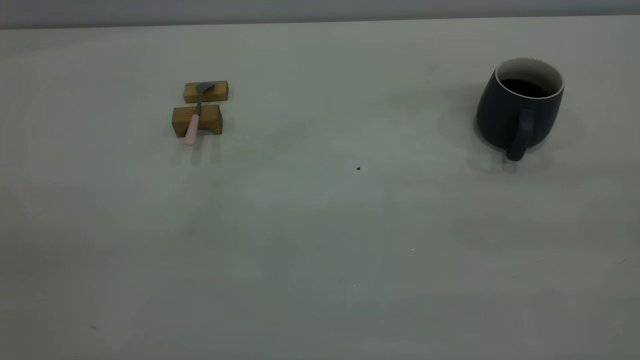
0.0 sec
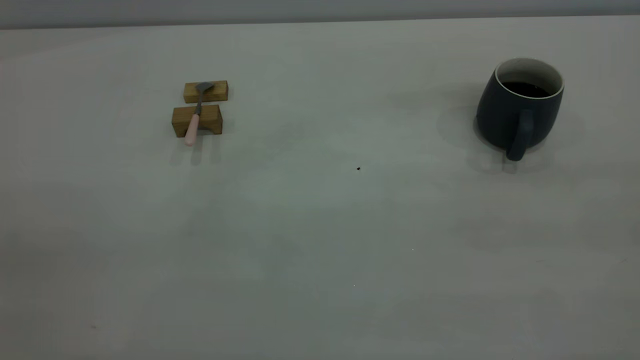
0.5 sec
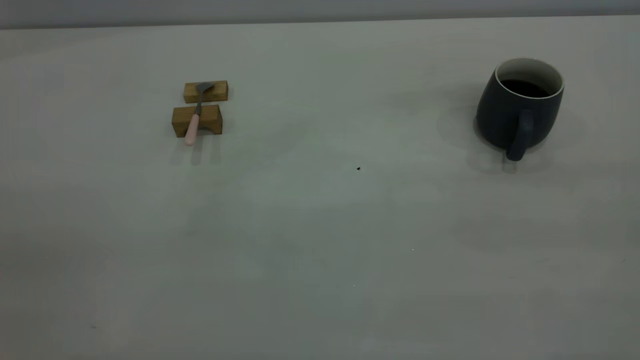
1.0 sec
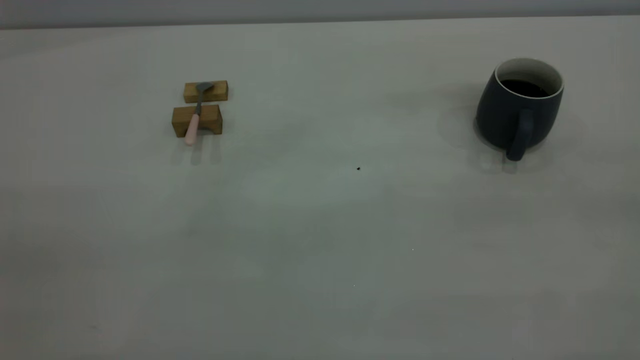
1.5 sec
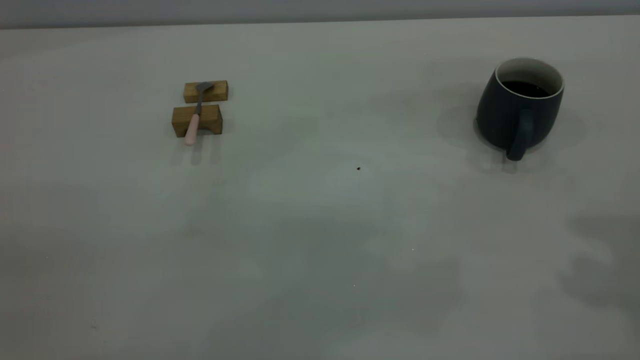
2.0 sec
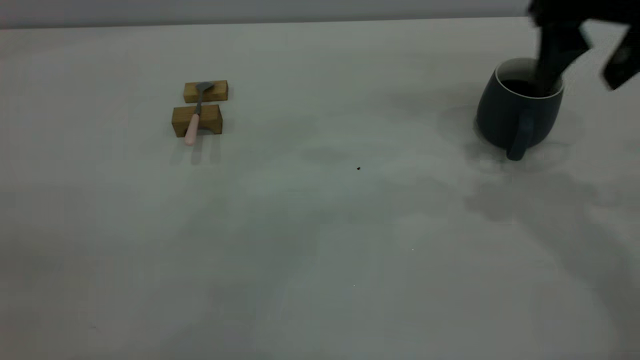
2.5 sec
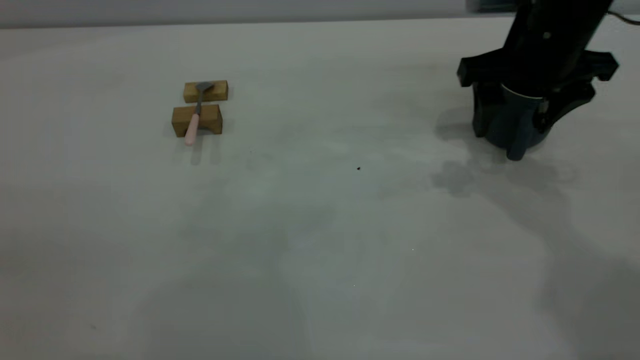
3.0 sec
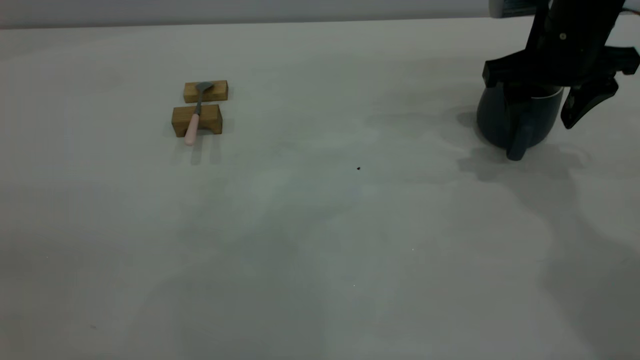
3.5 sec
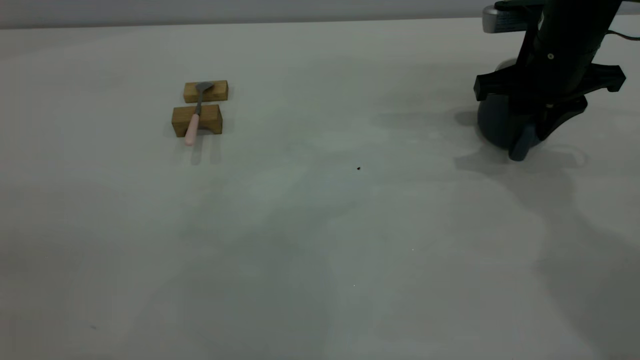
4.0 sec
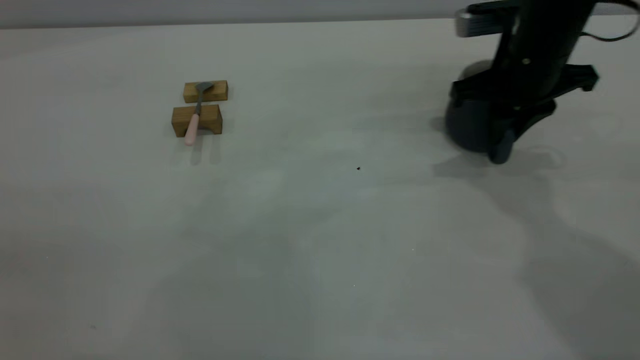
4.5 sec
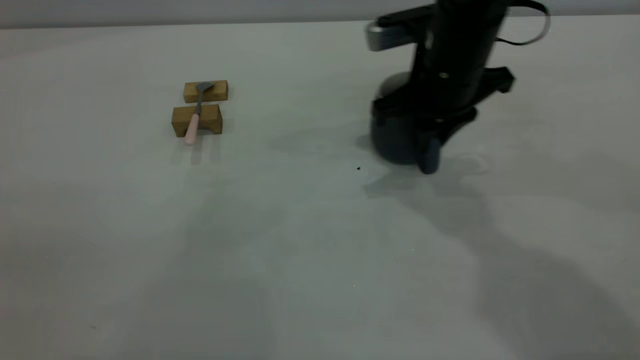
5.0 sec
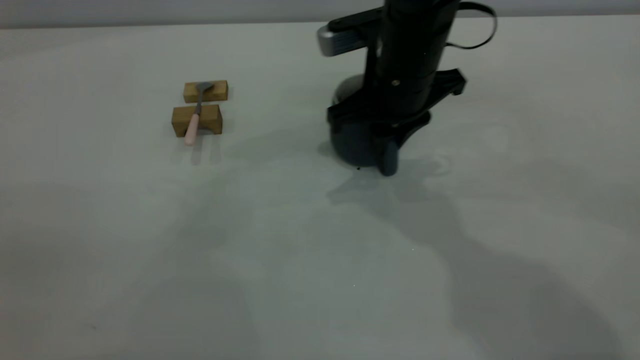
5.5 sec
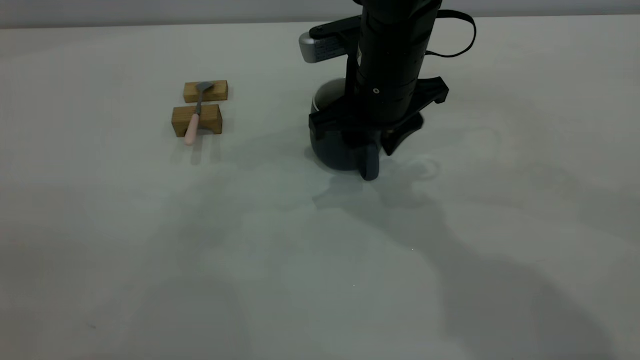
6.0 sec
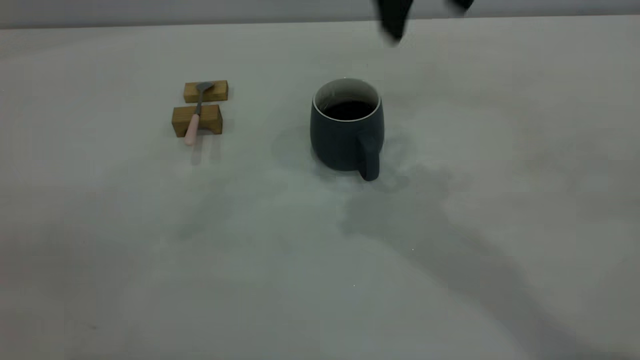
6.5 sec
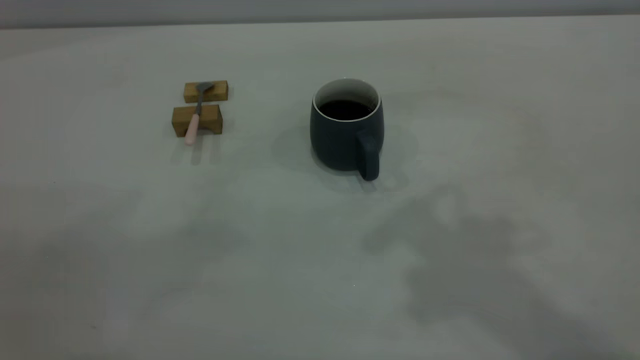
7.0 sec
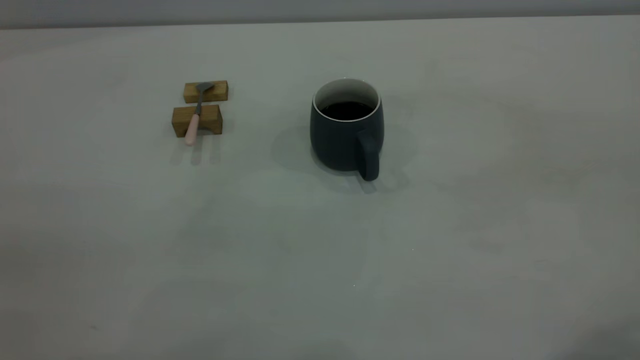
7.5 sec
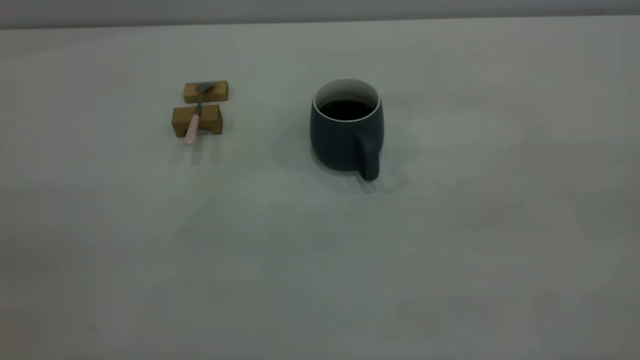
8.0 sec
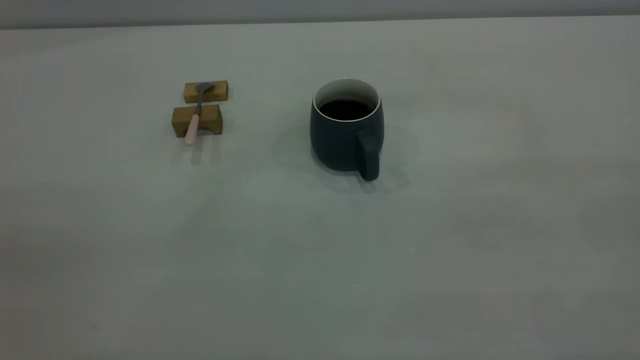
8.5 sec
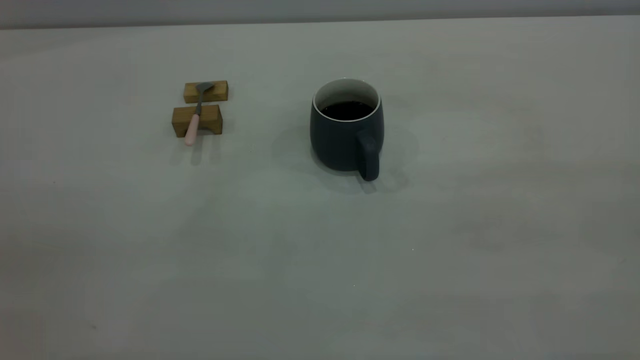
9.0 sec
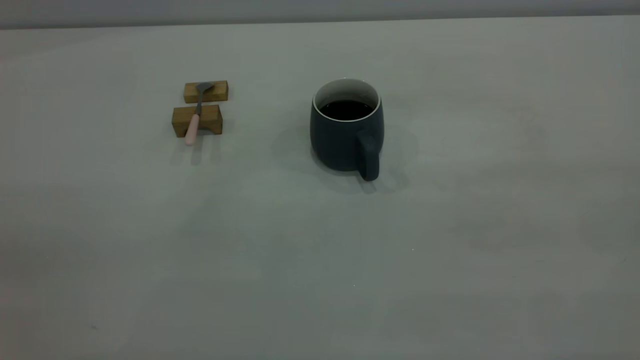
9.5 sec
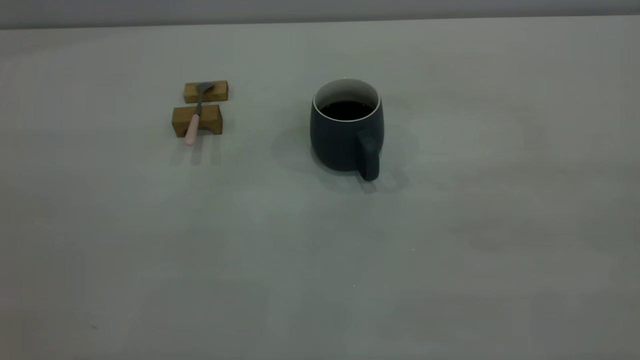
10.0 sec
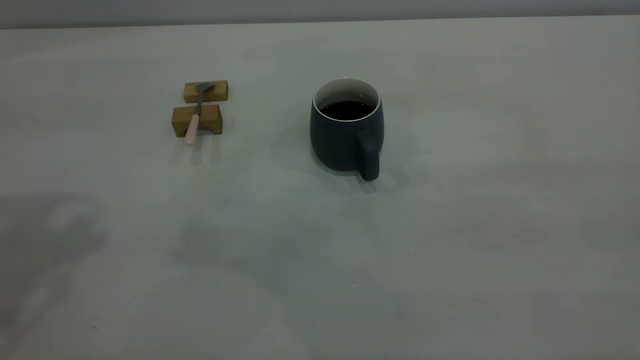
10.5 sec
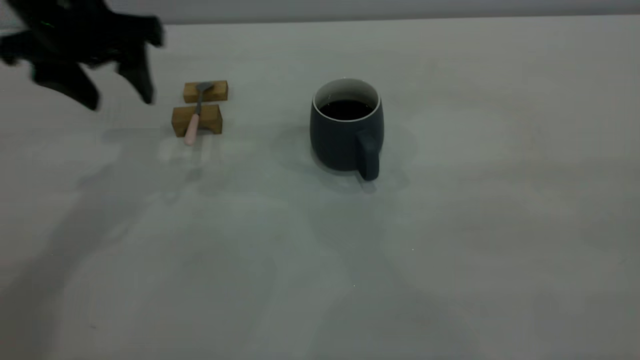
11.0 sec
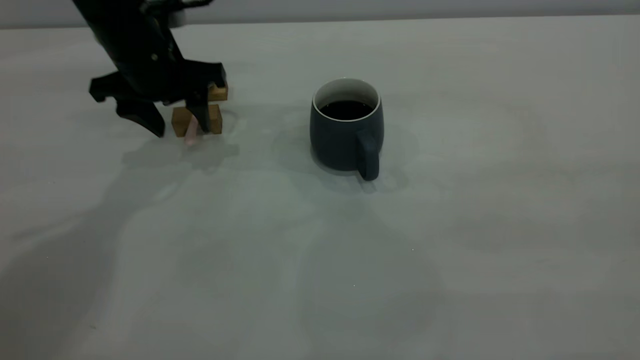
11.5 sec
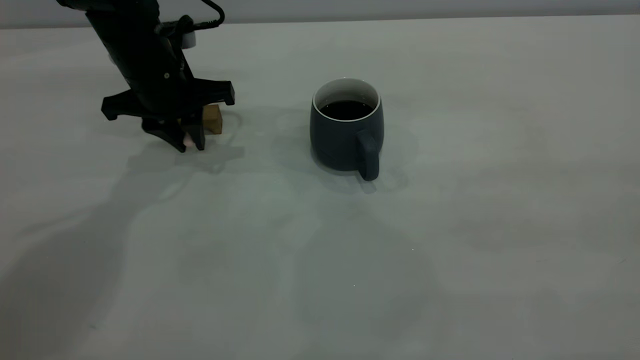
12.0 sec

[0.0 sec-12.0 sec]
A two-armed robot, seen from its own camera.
Step, 0.0 sec to 6.0 sec: Move the cup with coffee to the center of view.
2.0 sec to 4.0 sec: The right gripper goes about 30 cm downward and forward, and closes.
4.0 sec to 6.0 sec: The right gripper travels to the left by roughly 15 cm, and opens up.
6.0 sec to 8.0 sec: The right gripper moves backward, to the right and upward, some 50 cm.
10.0 sec to 12.0 sec: The left gripper shifts approximately 50 cm forward and downward, and closes.

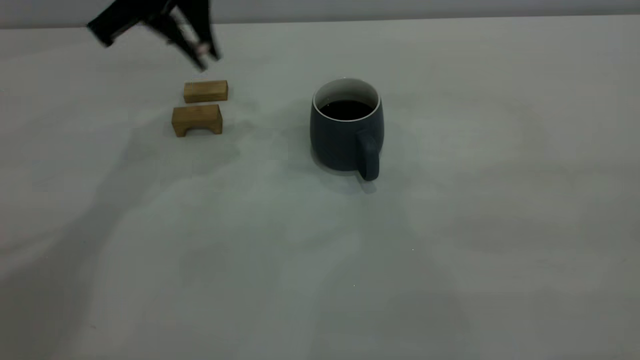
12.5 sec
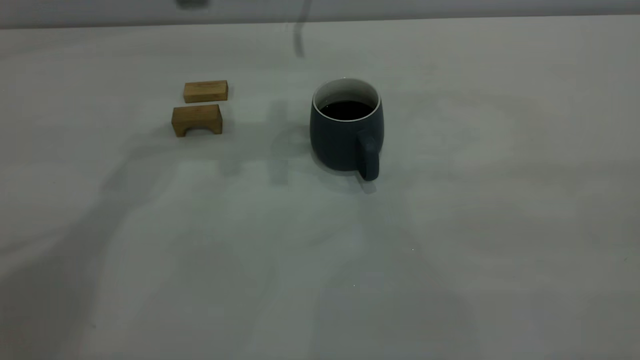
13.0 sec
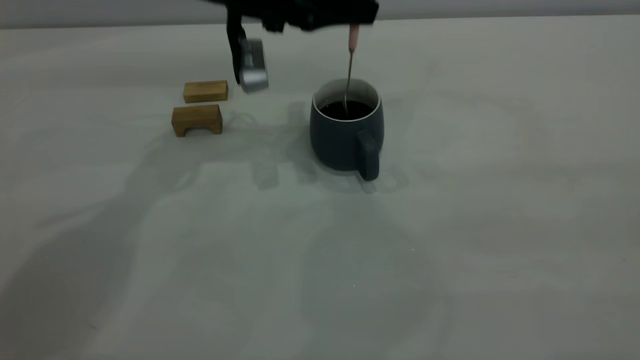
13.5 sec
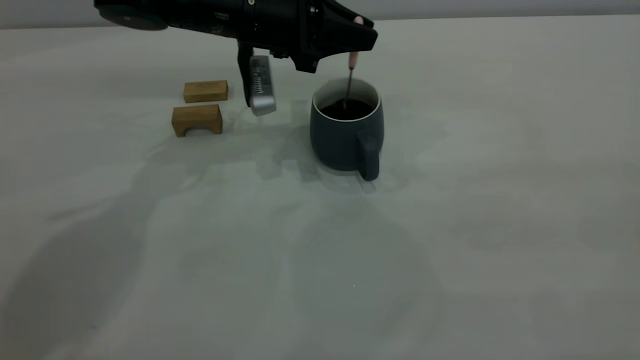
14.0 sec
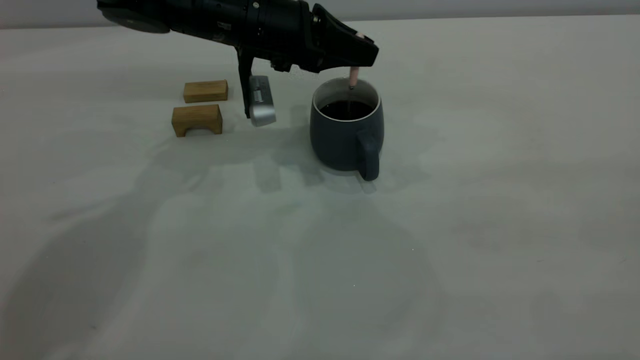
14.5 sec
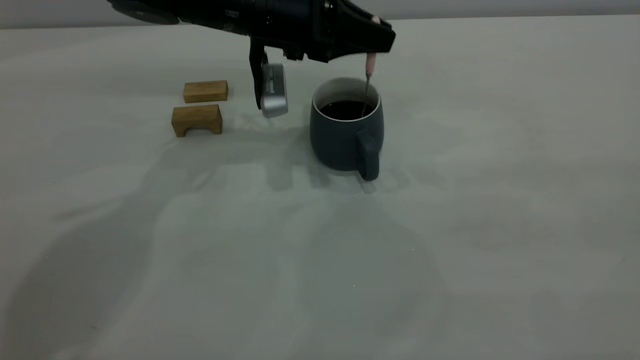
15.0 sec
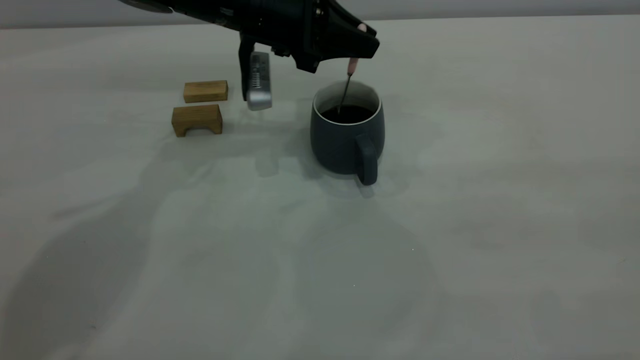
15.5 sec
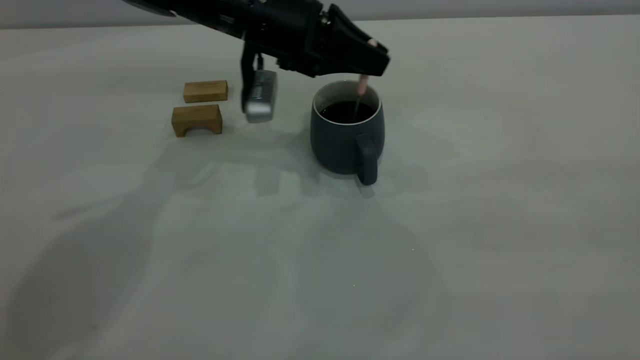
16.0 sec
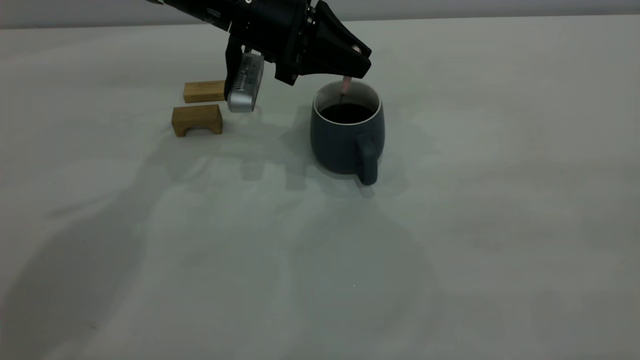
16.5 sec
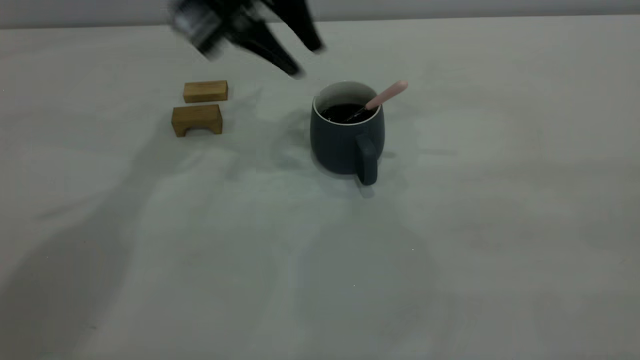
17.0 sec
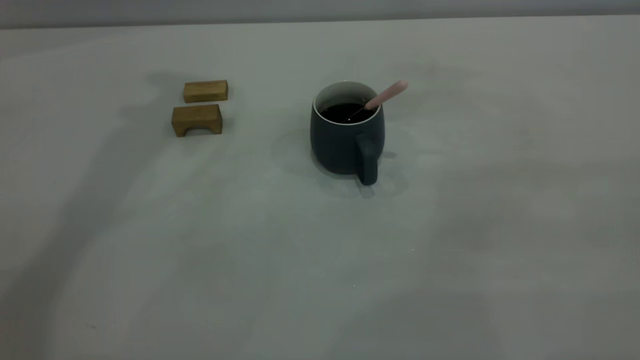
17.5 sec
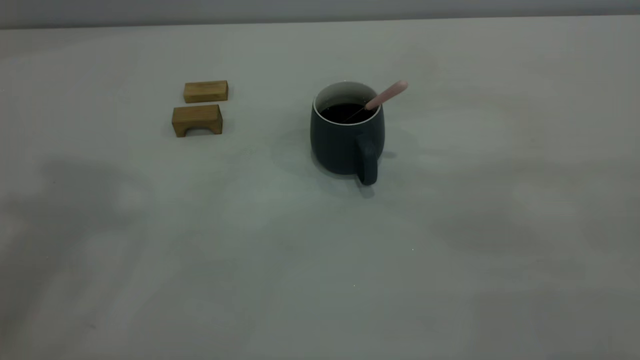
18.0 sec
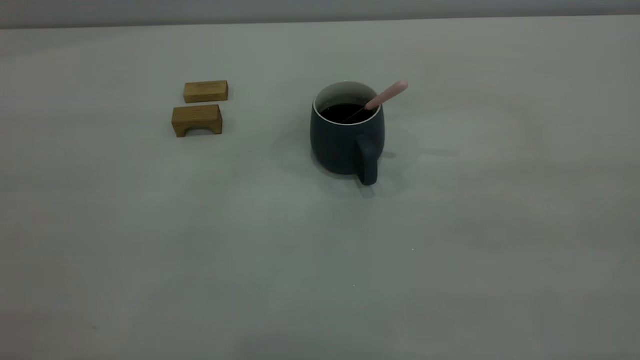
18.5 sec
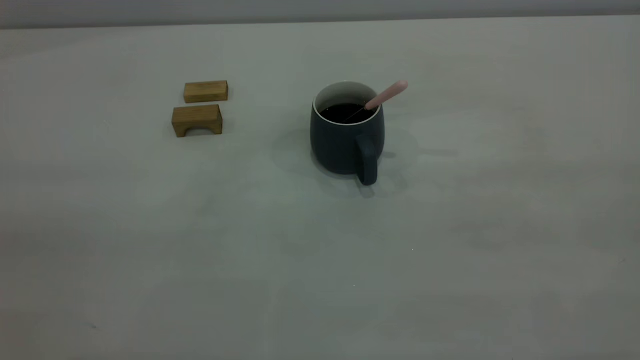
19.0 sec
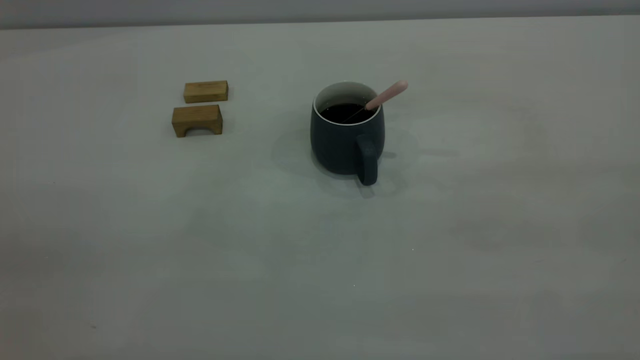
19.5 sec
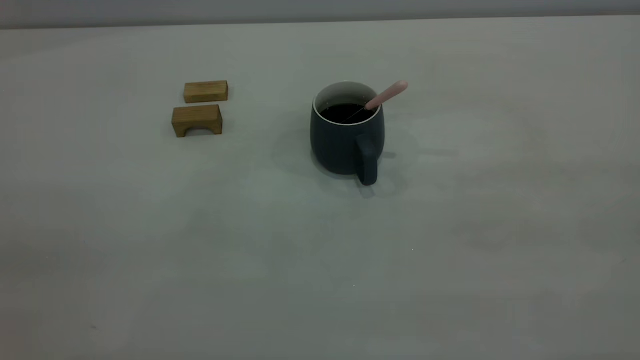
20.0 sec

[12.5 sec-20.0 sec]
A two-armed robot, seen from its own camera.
Step, 12.5 sec to 16.5 sec: Stir the coffee in the cup.
12.5 sec to 14.5 sec: The left gripper travels downward and to the right by approximately 15 cm.
14.5 sec to 16.5 sec: The grippers move only a little.
16.5 sec to 18.0 sec: The left gripper goes some 40 cm upward and backward.
